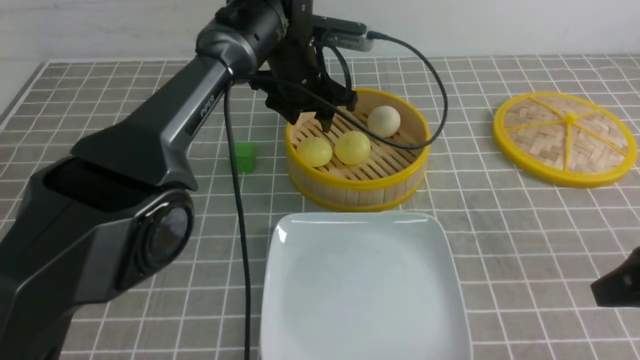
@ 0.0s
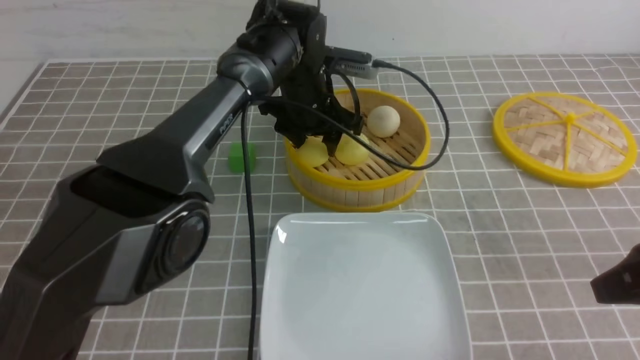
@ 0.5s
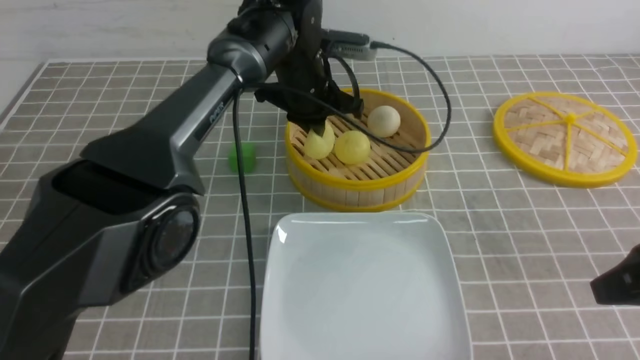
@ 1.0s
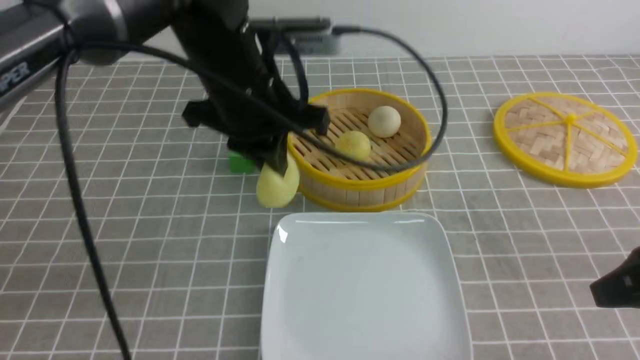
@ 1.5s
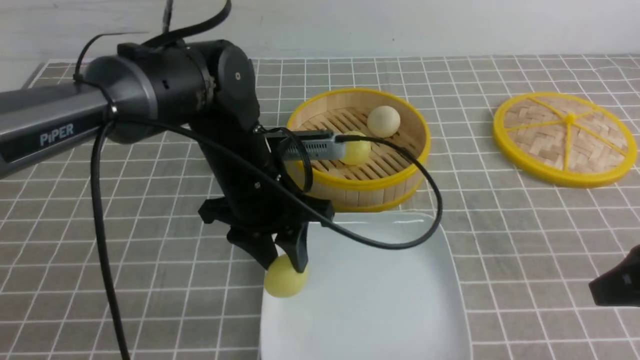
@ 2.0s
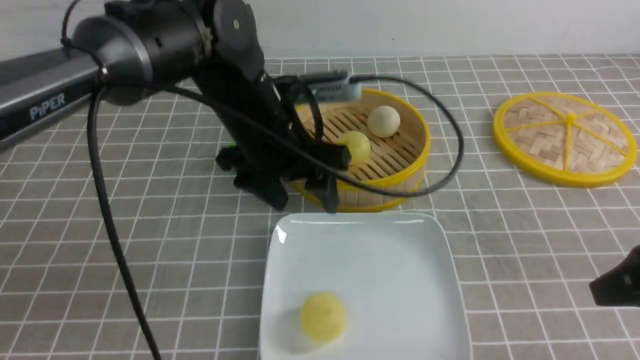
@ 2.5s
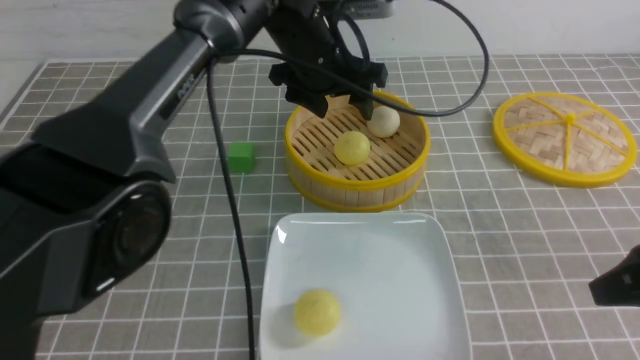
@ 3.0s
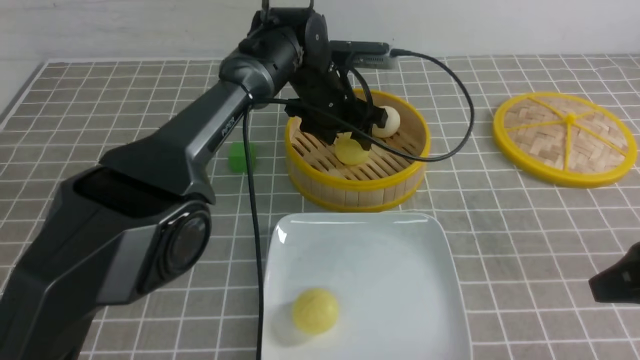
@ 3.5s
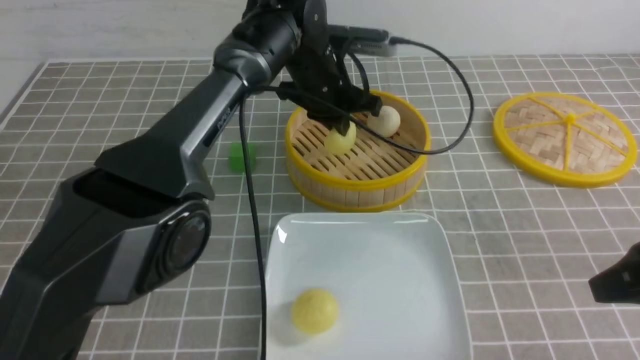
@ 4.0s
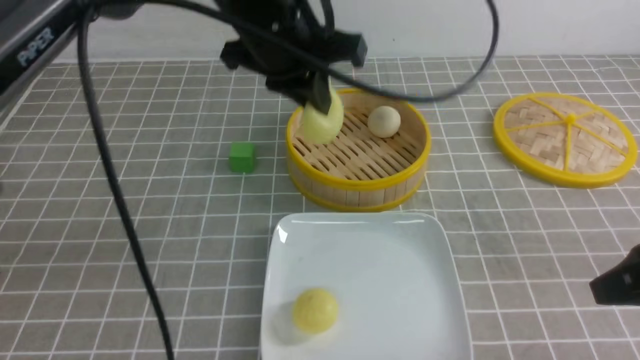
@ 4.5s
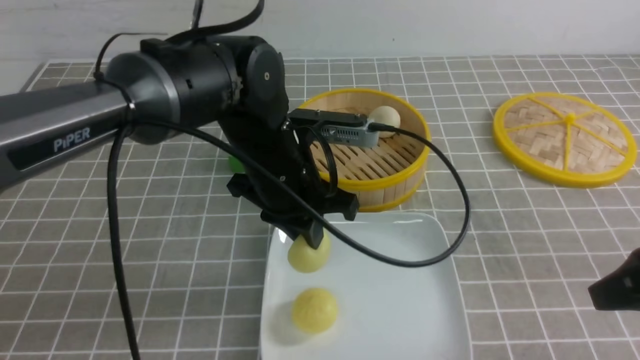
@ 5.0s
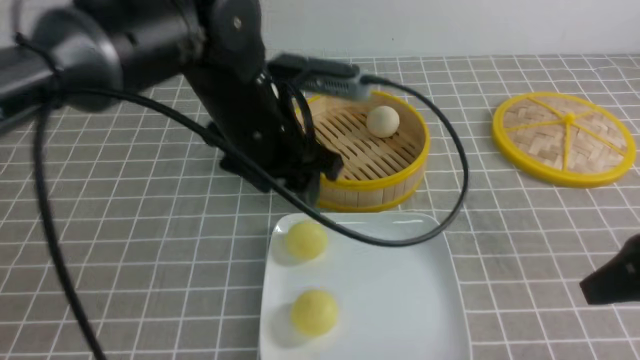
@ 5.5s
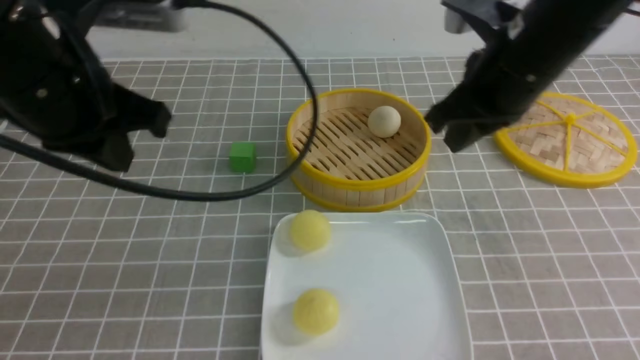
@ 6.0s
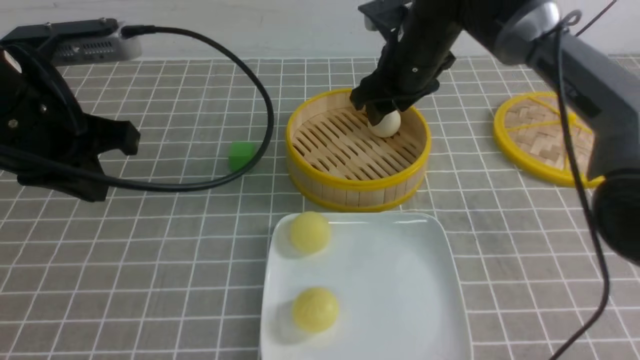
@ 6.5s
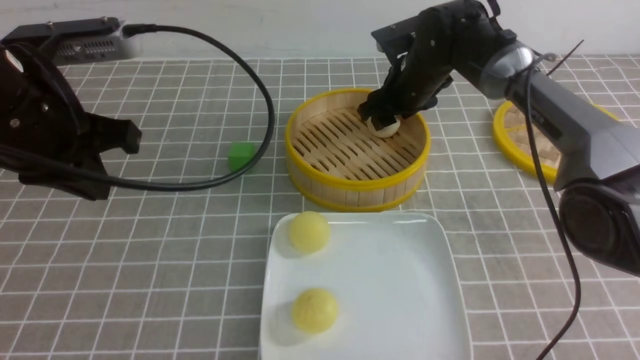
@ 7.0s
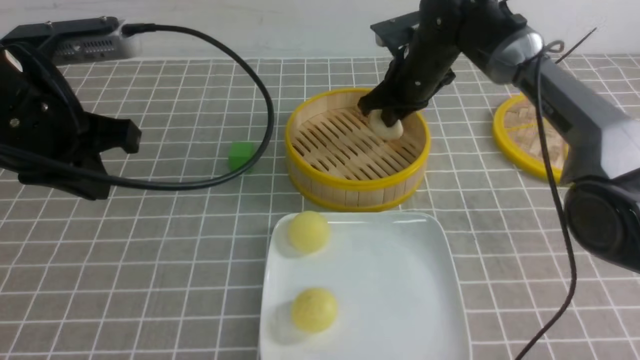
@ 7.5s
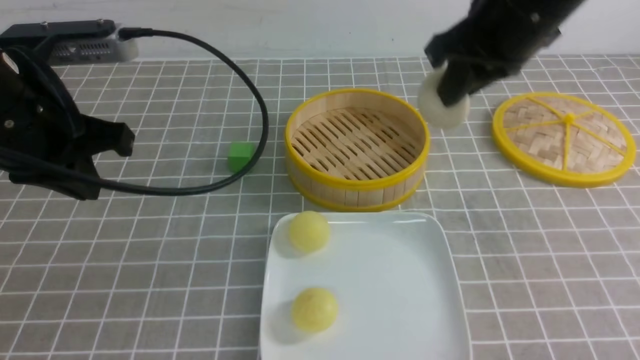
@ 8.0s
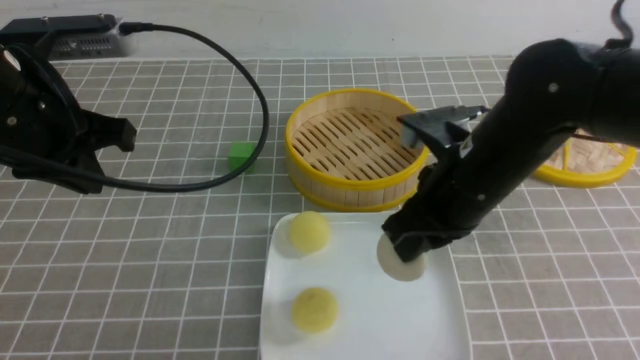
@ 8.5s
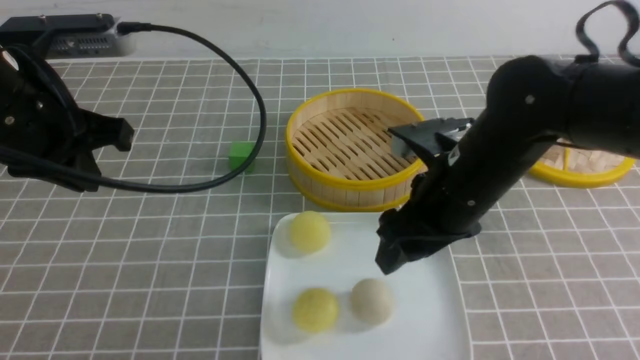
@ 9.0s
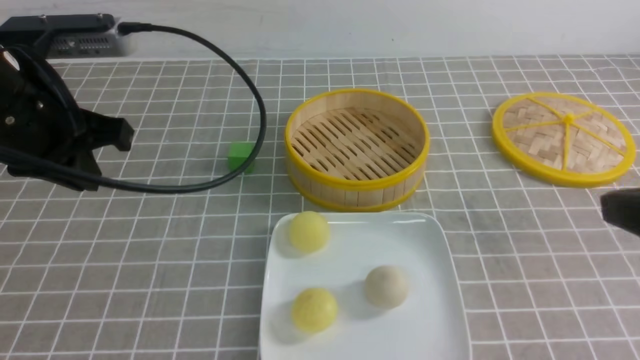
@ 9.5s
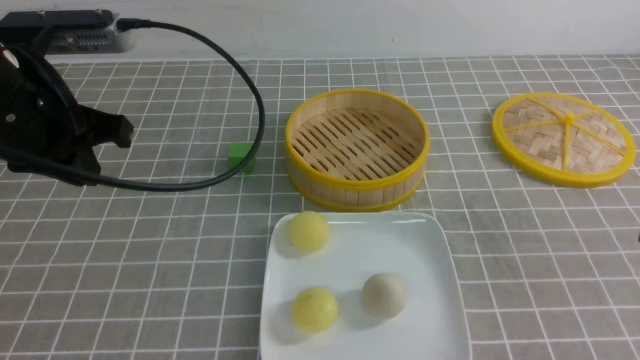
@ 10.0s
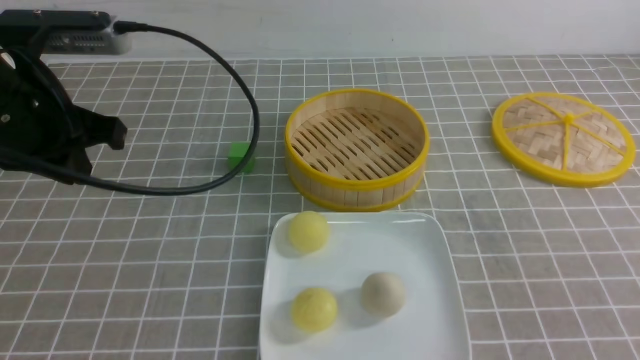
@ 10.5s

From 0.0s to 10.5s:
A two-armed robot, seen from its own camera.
Step, from 1.5s to 2.0s: use the left arm to put the steamed stuffed bun into the plate.
Step, from 2.5s to 3.5s: use the left arm to grab the steamed stuffed bun that is closest to it.
Step, from 4.5s to 5.0s: use the left arm to put the steamed stuffed bun into the plate.
Step, from 5.5s to 7.5s: use the right arm to grab the steamed stuffed bun that is closest to it.
Step, from 8.0s to 9.0s: use the right arm to put the steamed stuffed bun into the plate.
From 0.0s to 2.0s: The left gripper is displaced backward by about 15 cm, and closes and opens again.
From 2.0s to 4.0s: The left gripper travels forward and to the right by some 15 cm, and closes.
From 4.0s to 6.5s: The left gripper is displaced to the left and backward by about 30 cm, and opens and closes again, while the right gripper shifts about 35 cm forward and to the left, and opens its fingers.
From 6.5s to 8.5s: The right gripper goes roughly 20 cm backward, and closes its fingers.
From 8.5s to 10.5s: The right gripper is displaced backward and to the right by about 30 cm, and opens, then closes once more.

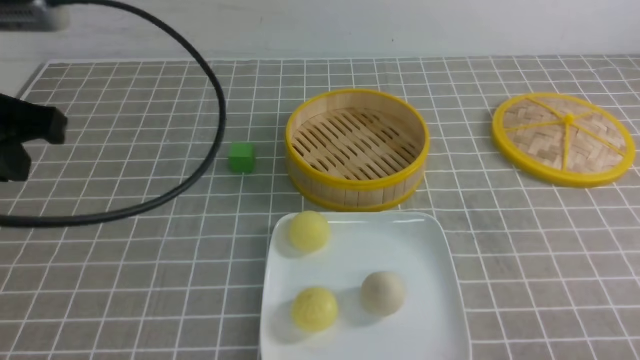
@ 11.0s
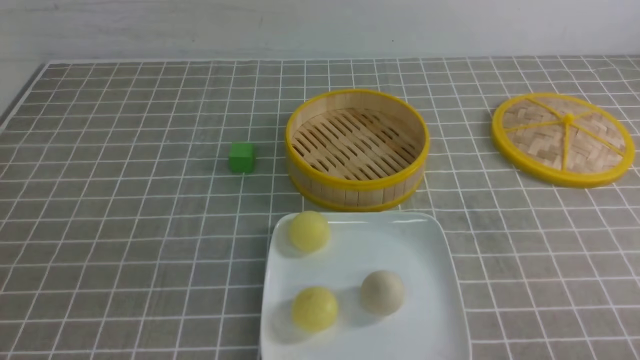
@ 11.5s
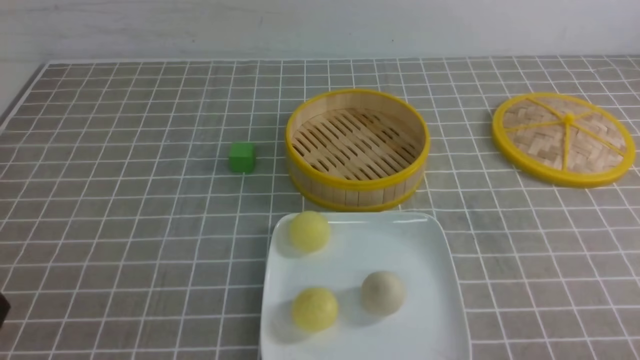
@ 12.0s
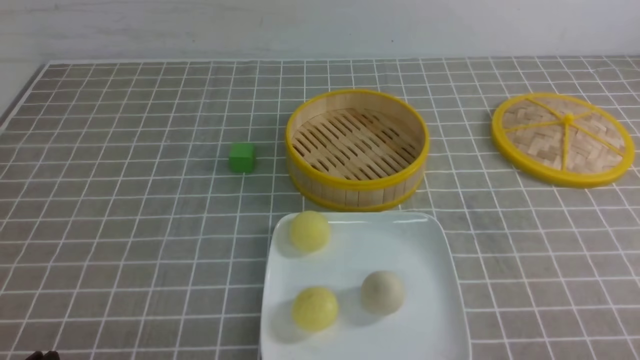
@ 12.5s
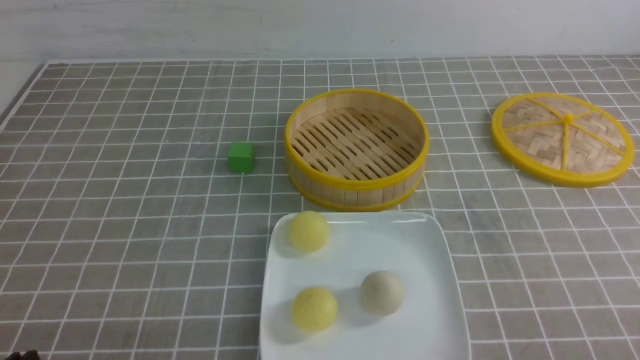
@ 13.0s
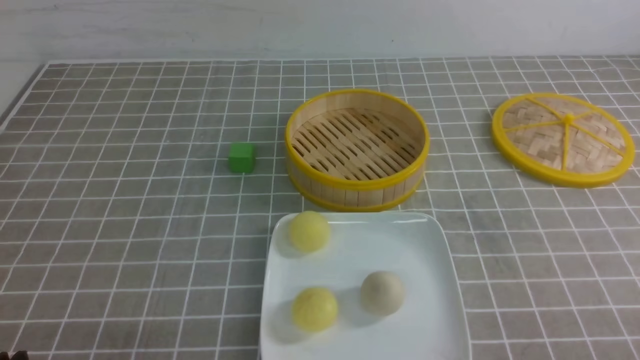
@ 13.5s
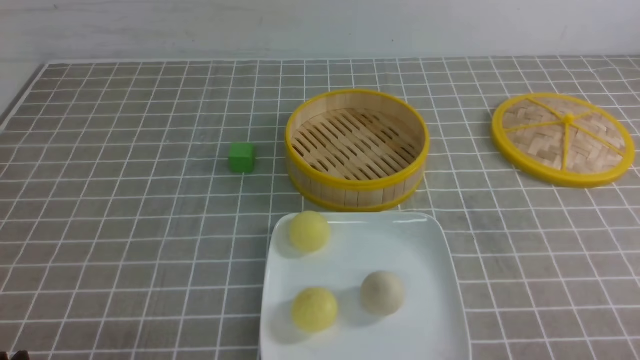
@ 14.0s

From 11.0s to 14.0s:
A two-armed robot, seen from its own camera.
From 11.0s to 12.5s: The left gripper travels downward and backward by approximately 25 cm.
